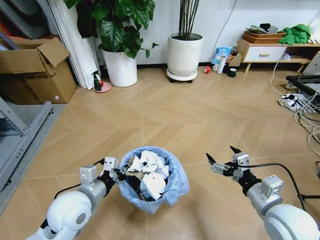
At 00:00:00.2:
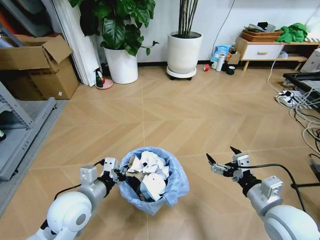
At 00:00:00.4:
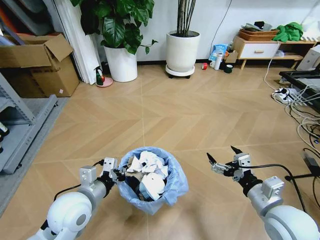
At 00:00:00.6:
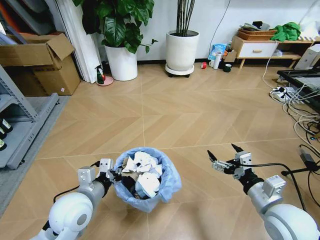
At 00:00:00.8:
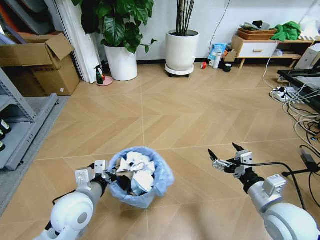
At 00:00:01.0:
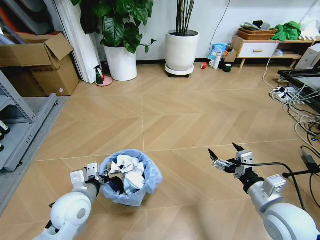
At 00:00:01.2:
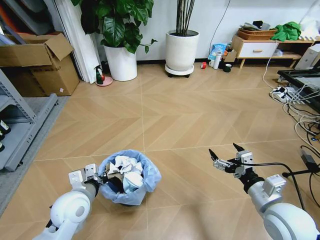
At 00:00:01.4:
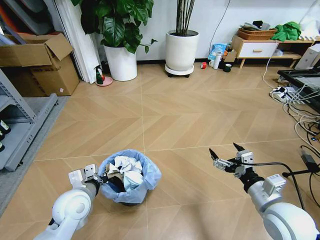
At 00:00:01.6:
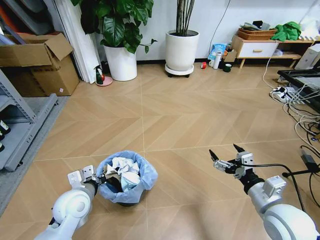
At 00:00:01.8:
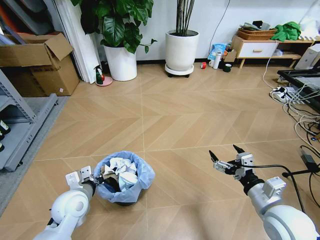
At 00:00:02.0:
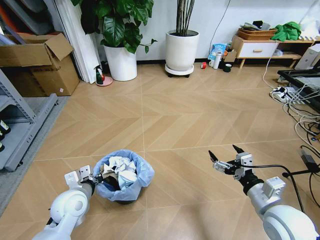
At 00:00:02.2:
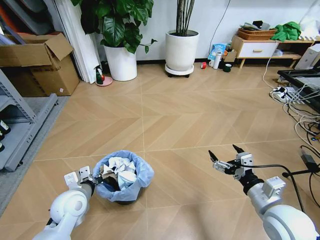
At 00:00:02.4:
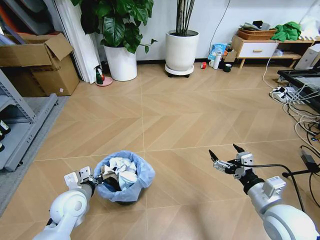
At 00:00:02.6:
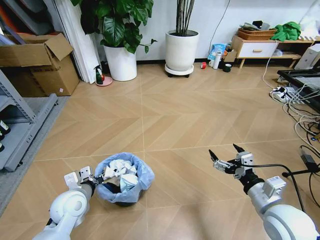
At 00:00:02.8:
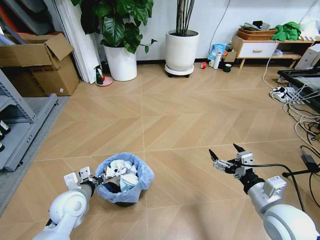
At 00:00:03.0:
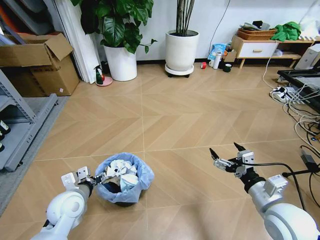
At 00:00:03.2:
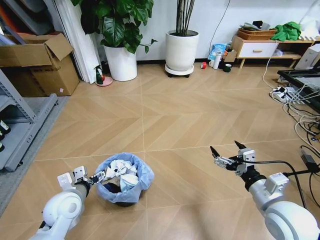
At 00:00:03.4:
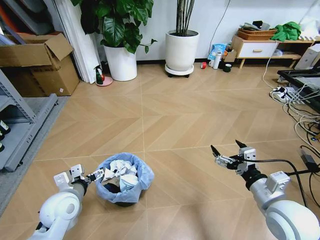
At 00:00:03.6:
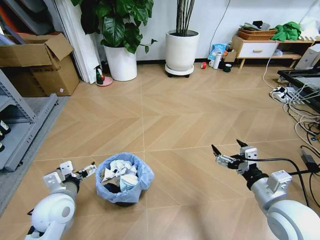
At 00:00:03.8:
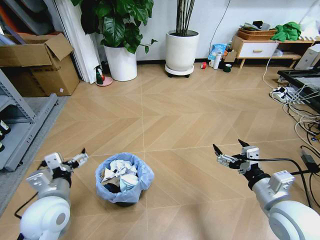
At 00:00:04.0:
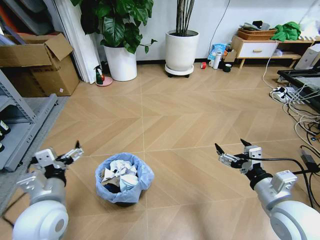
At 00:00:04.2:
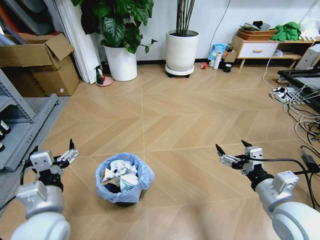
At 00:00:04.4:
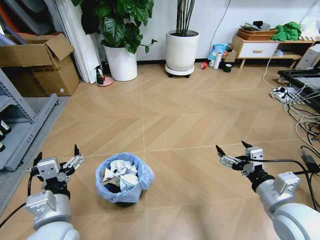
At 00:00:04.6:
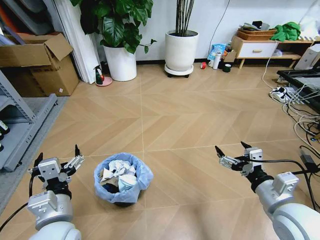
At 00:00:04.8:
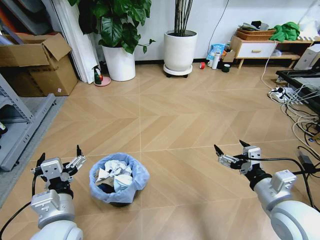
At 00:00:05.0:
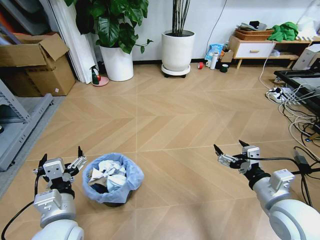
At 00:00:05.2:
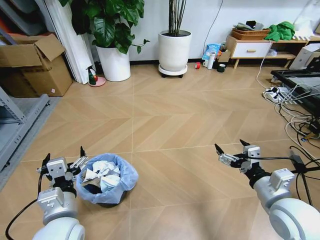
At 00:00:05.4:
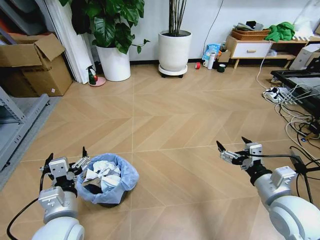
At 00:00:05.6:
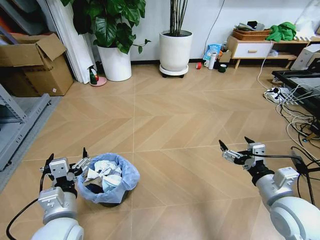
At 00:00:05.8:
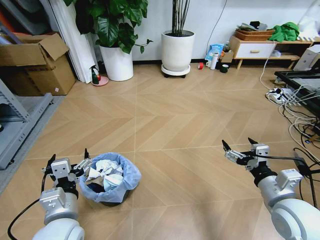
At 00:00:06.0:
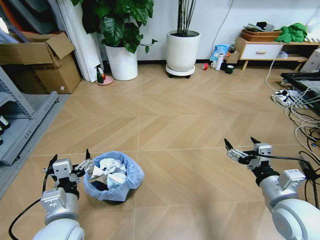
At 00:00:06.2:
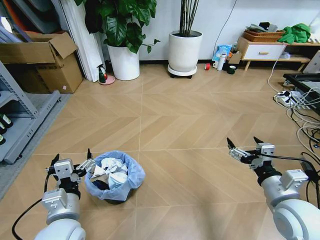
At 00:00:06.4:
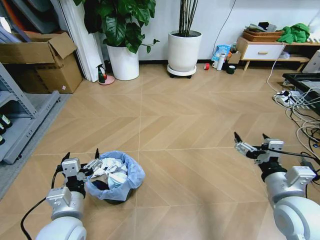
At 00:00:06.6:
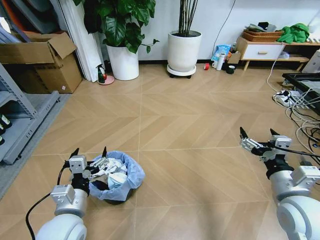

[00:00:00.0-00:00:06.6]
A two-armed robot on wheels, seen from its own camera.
Task of the whole recording: Pick up the trash bin and place the garbage on the floor into it.
00:00:00.0 to 00:00:01.6: The left gripper travels downward by about 5 cm.
00:00:01.6 to 00:00:03.2: The left gripper opens its fingers.
00:00:03.2 to 00:00:05.0: The left gripper goes some 15 cm backward, upward and to the right.
